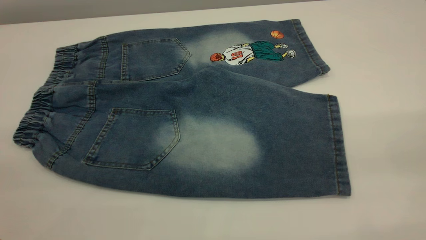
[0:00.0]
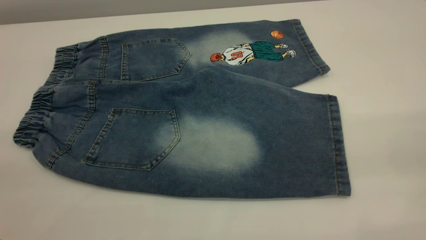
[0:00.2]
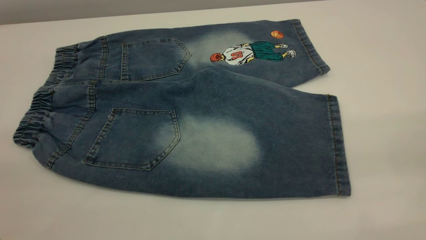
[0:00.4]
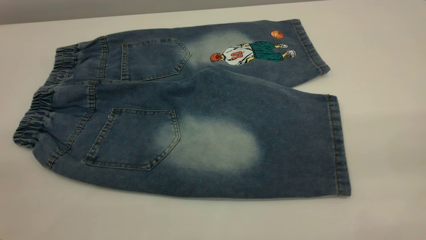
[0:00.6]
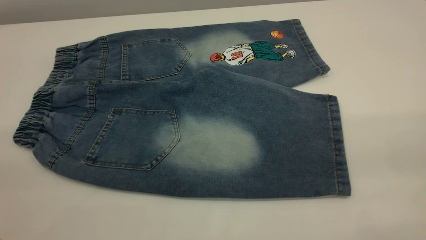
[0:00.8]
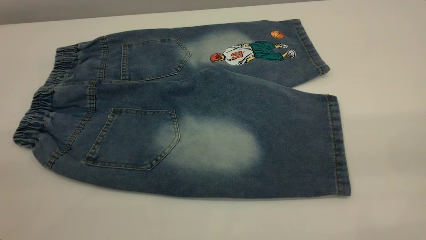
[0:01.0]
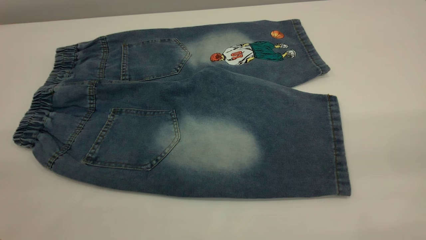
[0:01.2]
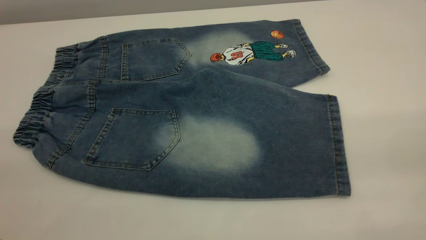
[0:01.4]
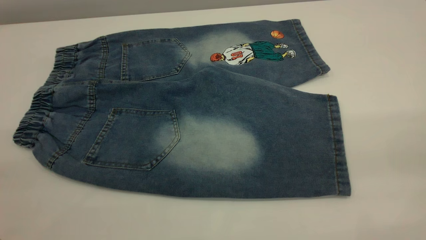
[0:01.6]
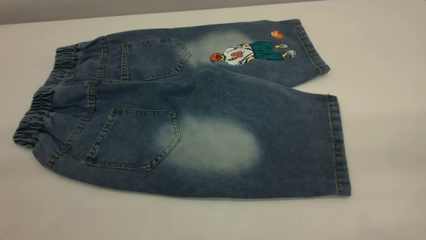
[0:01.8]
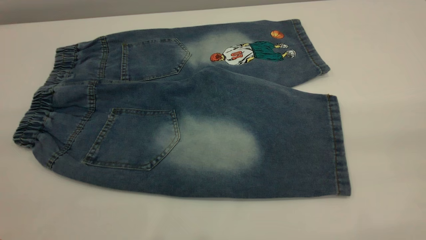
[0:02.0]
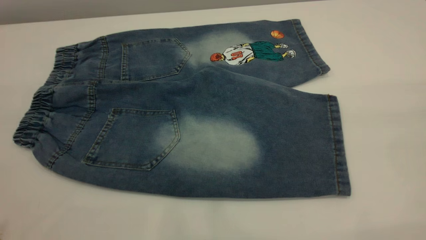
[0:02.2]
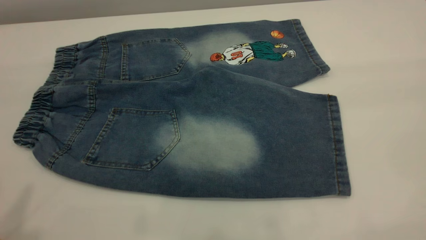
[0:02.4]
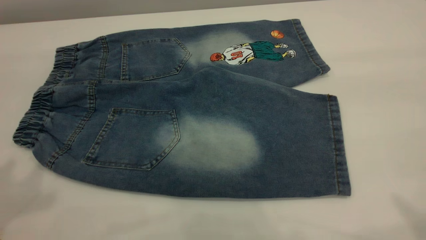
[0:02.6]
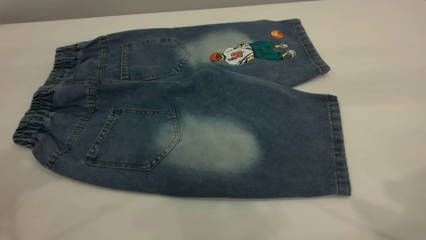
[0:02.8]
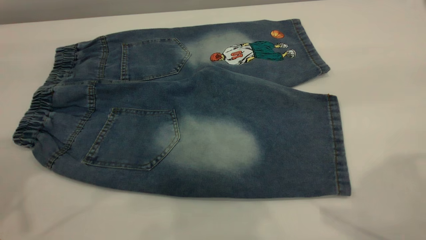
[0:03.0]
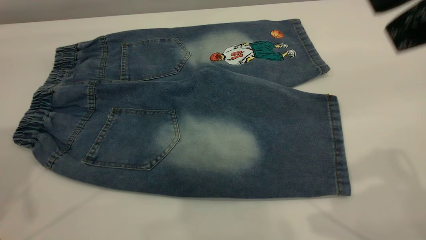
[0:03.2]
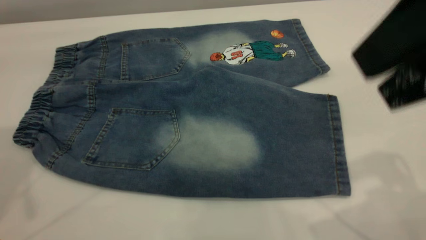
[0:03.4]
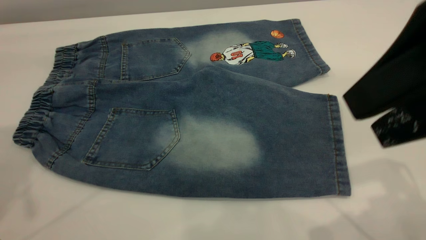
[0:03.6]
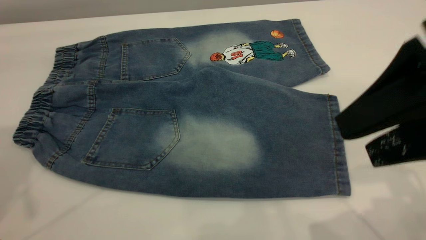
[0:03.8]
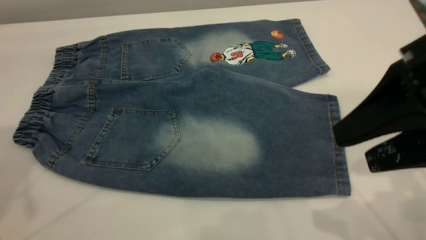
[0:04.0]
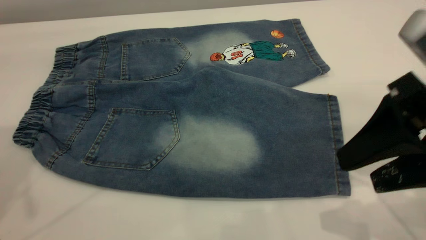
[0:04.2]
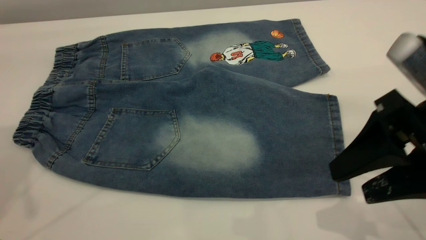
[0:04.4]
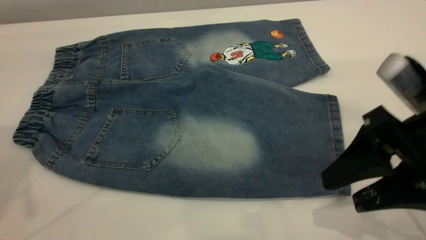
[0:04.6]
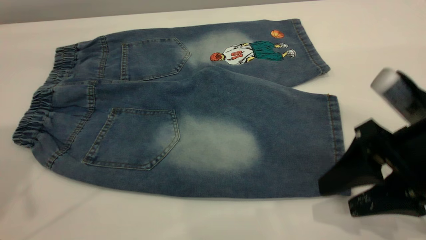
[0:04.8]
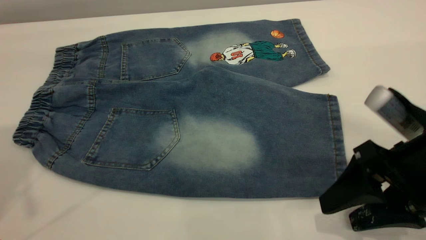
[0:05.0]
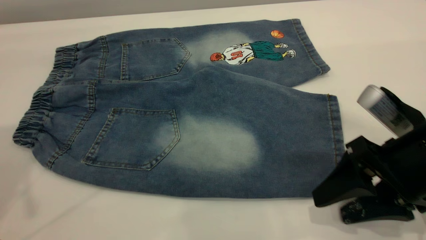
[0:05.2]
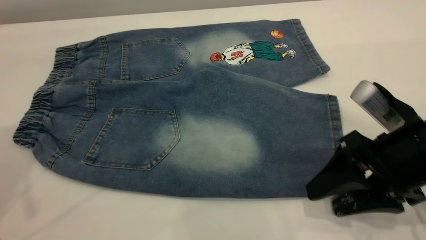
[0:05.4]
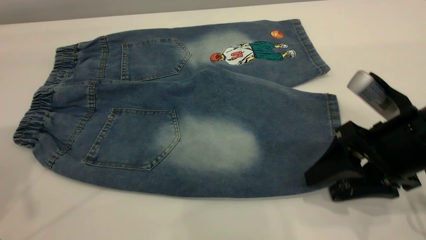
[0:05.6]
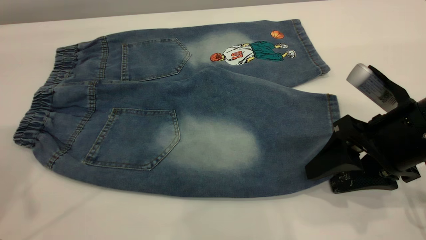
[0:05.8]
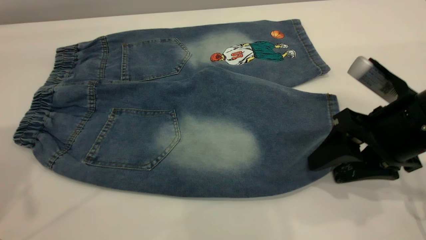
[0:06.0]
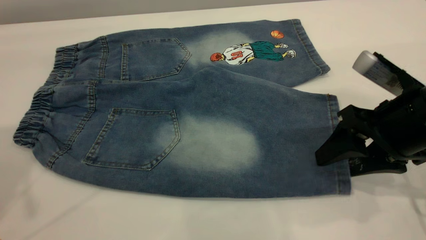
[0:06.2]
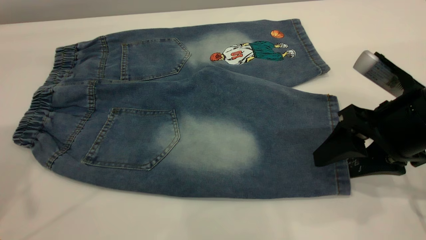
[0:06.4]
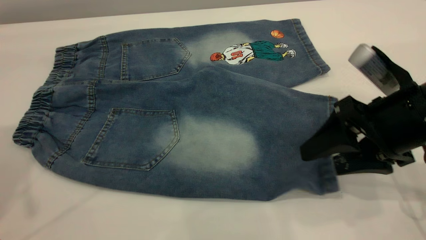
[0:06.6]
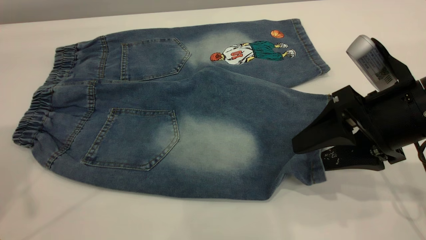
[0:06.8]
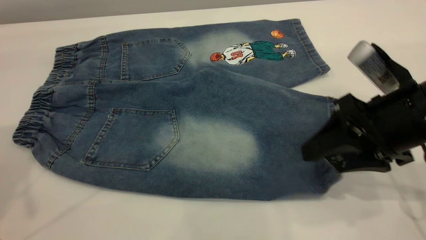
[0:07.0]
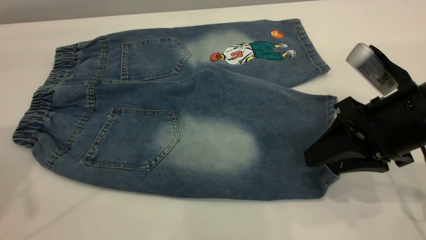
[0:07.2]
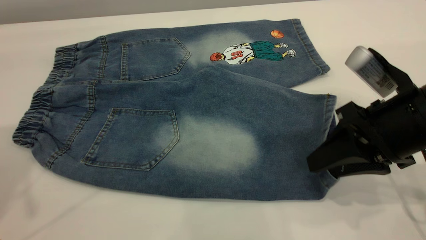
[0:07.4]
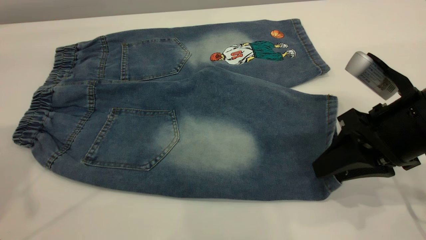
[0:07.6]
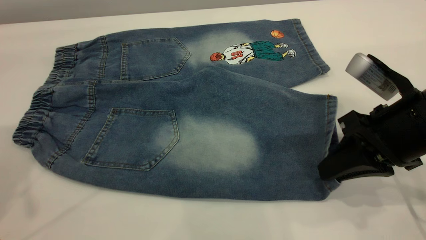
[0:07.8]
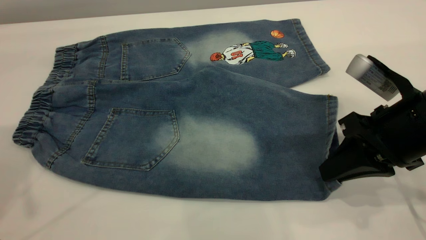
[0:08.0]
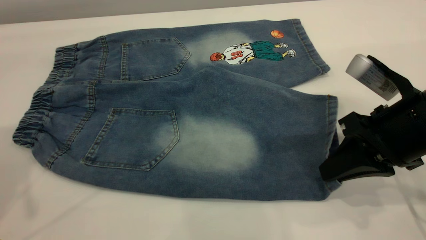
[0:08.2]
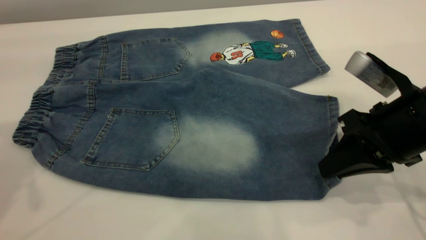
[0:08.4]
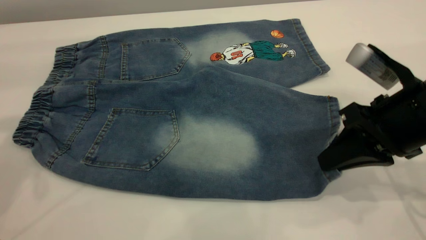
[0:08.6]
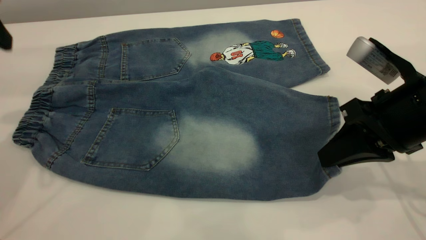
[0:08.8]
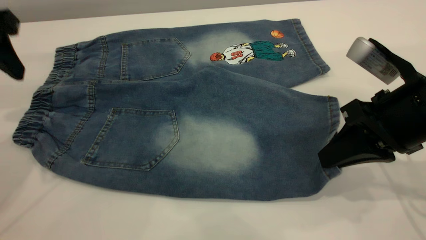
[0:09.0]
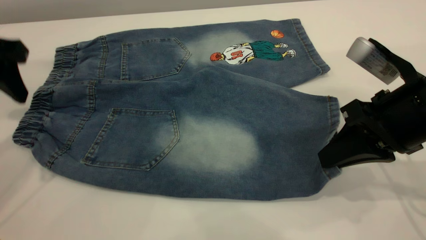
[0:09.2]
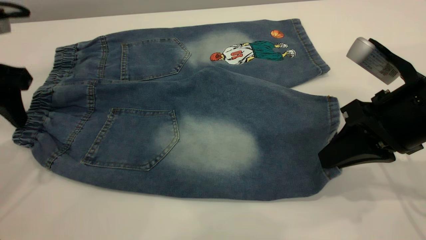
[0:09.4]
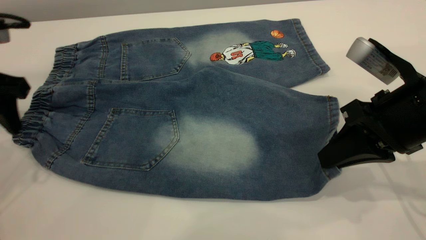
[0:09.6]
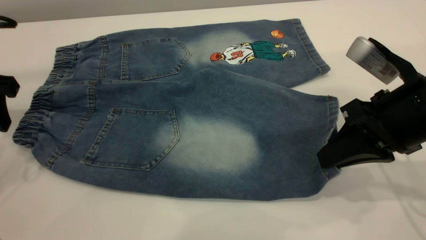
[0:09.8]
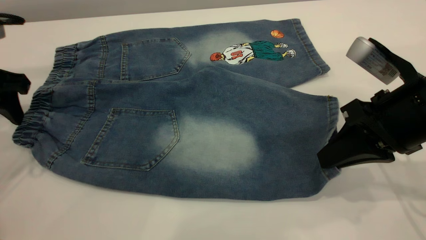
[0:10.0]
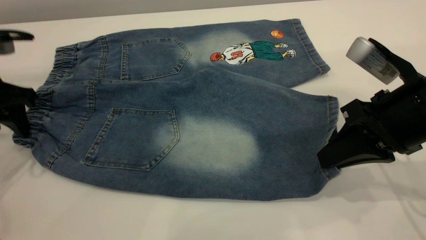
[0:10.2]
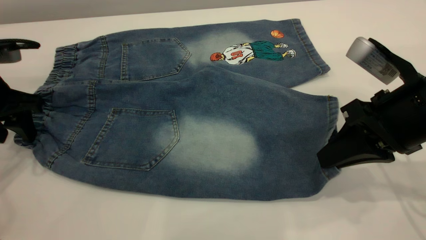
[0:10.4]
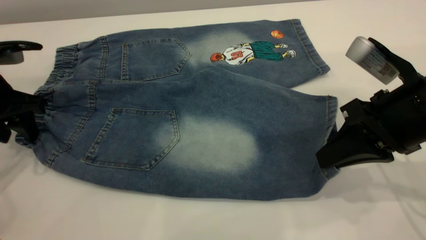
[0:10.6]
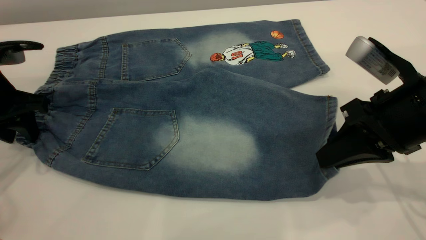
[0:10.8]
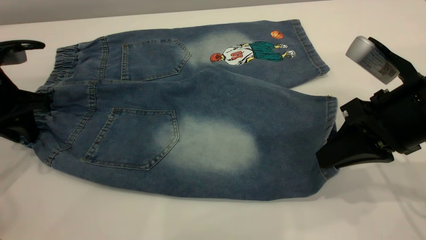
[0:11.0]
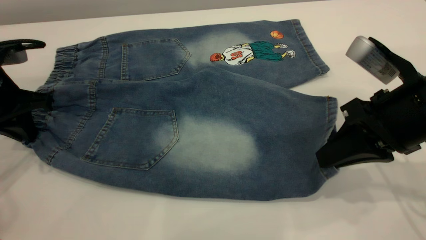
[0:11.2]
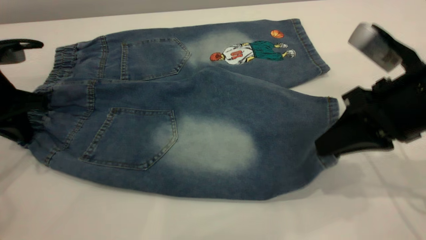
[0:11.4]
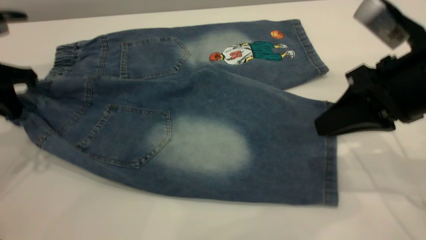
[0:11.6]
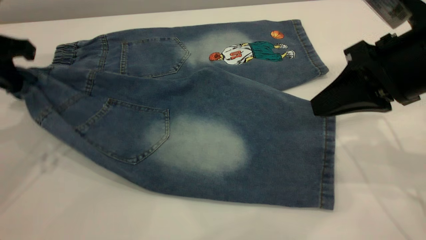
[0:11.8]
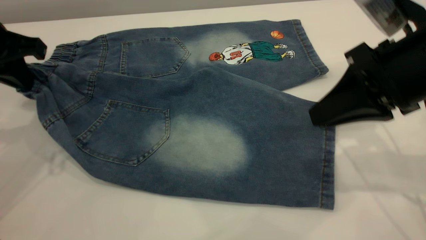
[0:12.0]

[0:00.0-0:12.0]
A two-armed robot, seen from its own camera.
0:00.0 to 0:01.6: Both grippers stay put.
0:03.0 to 0:04.4: The right gripper travels downward by about 20 cm.
0:04.4 to 0:06.0: The right gripper moves downward and forward, some 10 cm.
0:06.0 to 0:07.6: The right gripper closes its fingers.
0:07.6 to 0:09.0: The left gripper goes roughly 15 cm downward.
0:09.0 to 0:10.4: The left gripper travels downward by some 10 cm.
0:10.4 to 0:12.0: The right gripper shifts by roughly 5 cm, while the left gripper is displaced upward by some 5 cm, and closes.

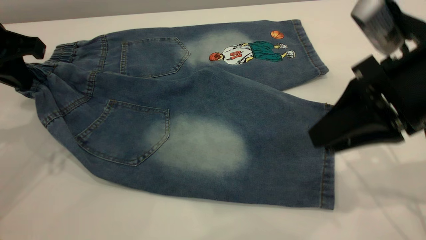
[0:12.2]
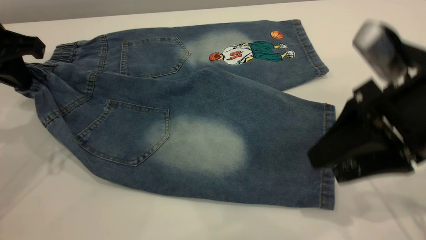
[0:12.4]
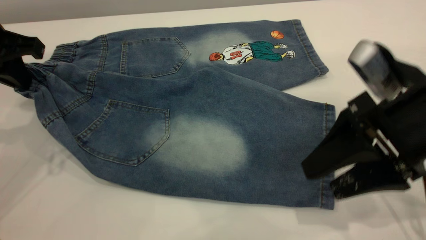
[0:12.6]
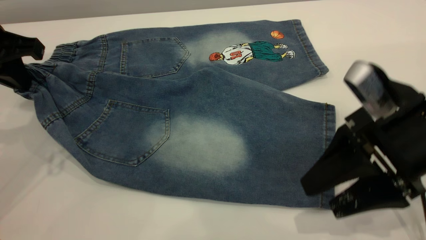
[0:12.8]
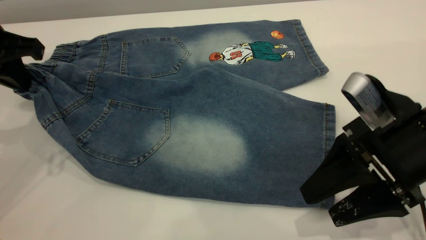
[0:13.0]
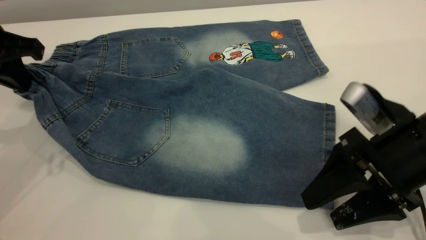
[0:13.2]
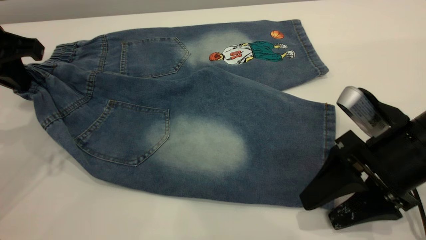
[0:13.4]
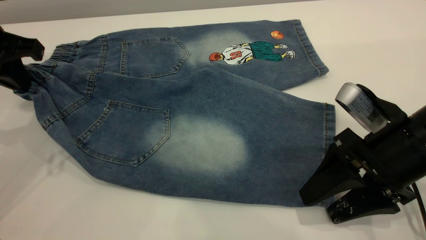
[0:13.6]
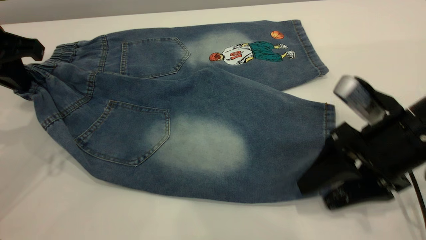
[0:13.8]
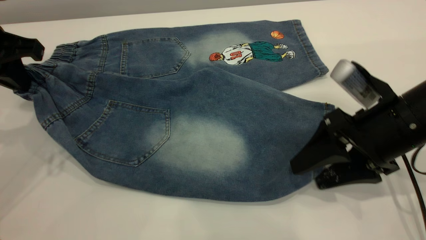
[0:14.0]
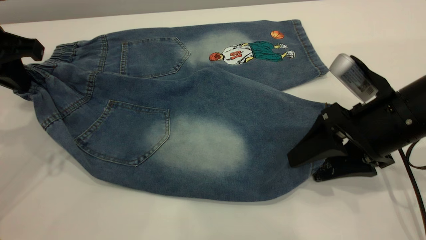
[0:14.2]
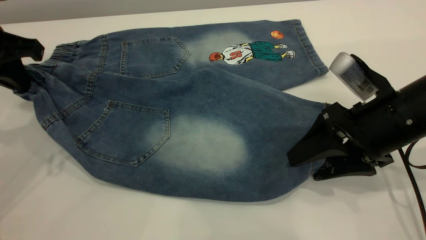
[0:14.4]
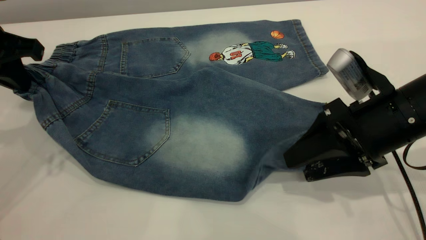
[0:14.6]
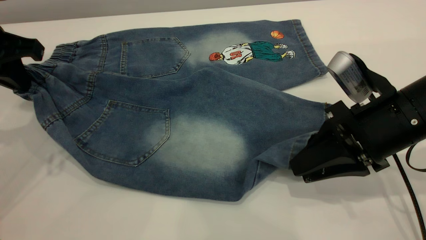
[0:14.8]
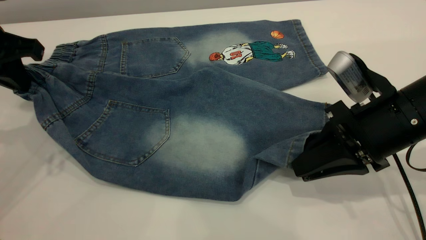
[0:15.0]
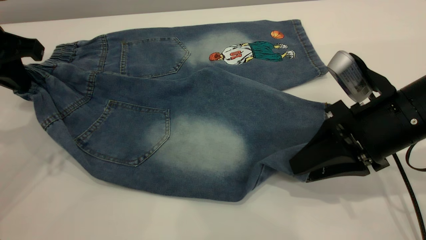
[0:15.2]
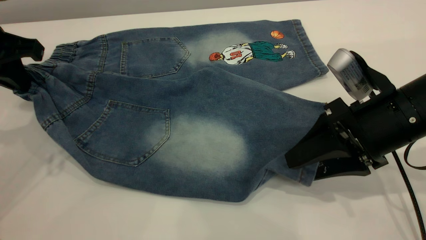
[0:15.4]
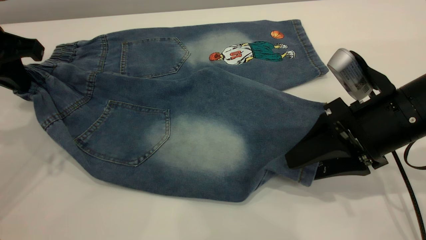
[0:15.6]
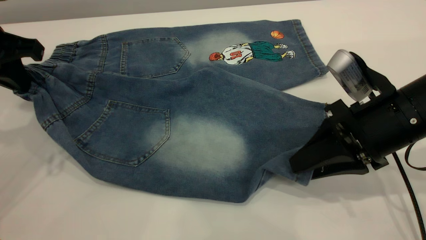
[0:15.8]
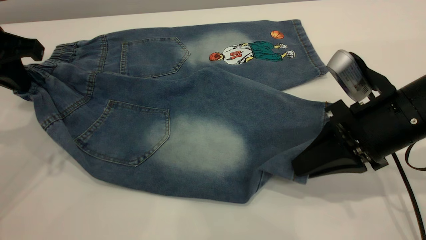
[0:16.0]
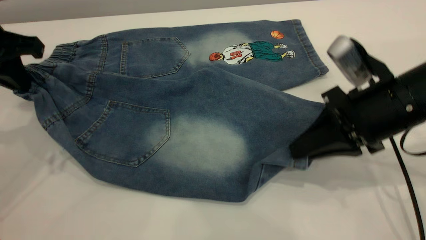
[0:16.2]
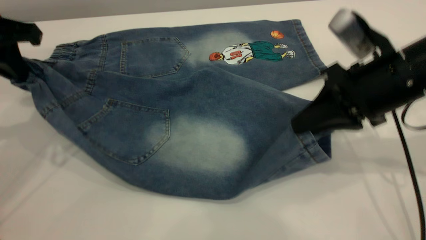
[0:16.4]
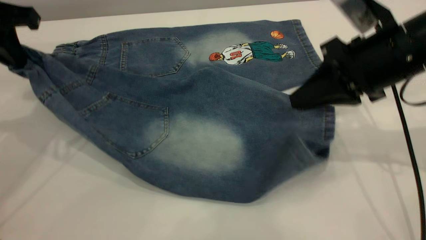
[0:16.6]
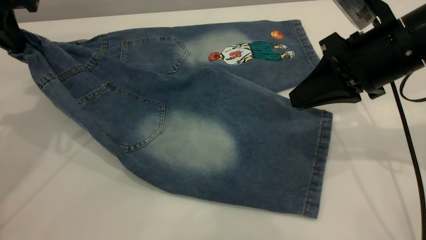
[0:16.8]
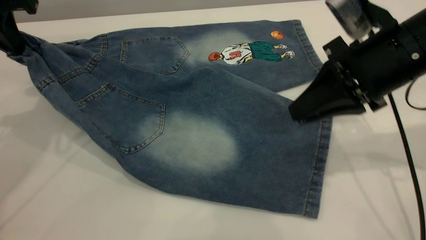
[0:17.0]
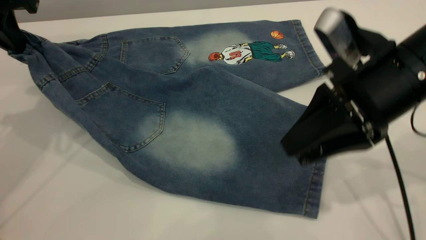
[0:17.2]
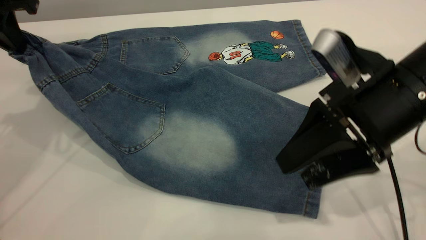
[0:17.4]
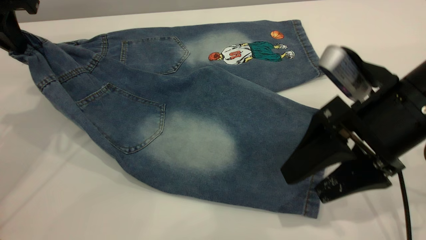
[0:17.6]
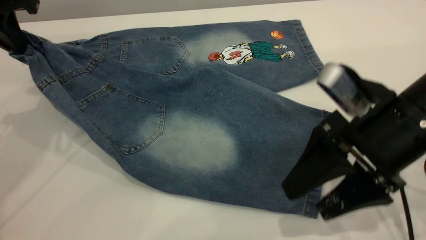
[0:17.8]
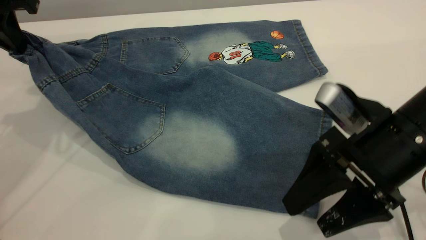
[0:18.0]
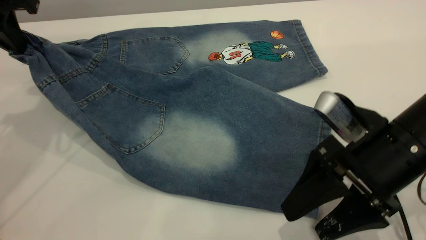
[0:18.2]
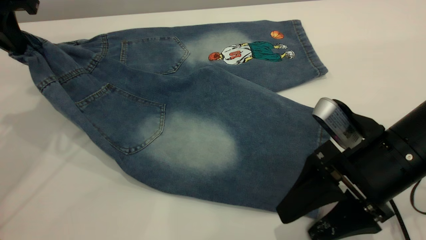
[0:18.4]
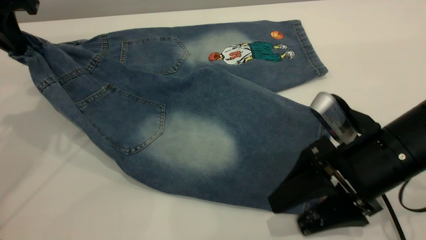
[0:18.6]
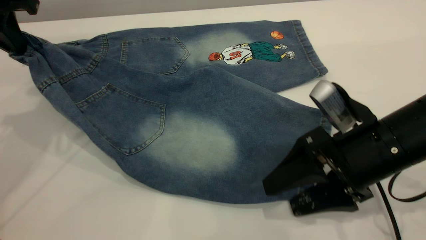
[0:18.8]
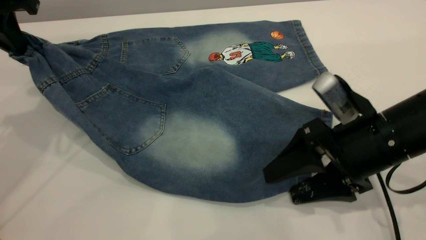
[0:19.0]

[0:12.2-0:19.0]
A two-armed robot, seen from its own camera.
0:12.2 to 0:13.6: The right gripper heads downward, covering approximately 10 cm, and opens.
0:13.6 to 0:15.0: The right gripper closes its fingers.
0:15.0 to 0:16.2: The right gripper opens, then closes again.
0:16.2 to 0:17.6: The right gripper opens up, while the left gripper shifts by roughly 5 cm.
0:17.6 to 0:19.0: The right gripper shifts approximately 5 cm downward.
